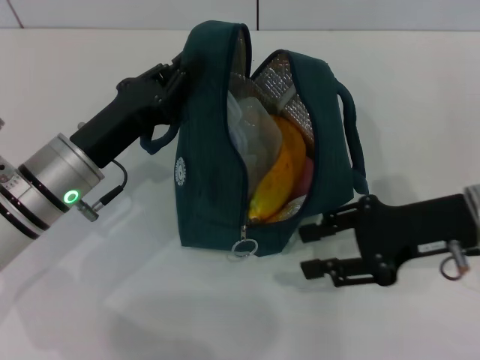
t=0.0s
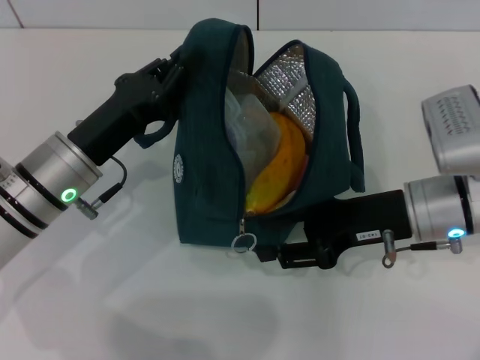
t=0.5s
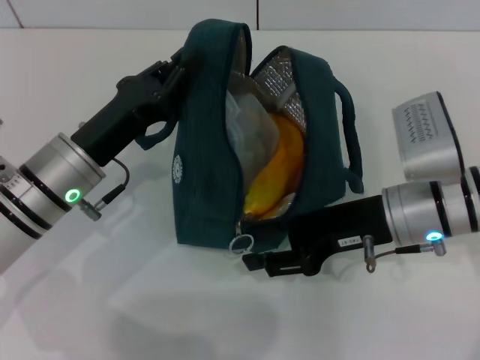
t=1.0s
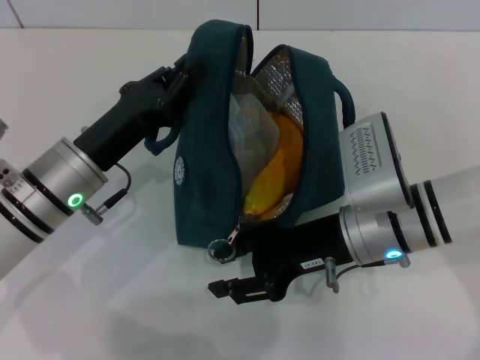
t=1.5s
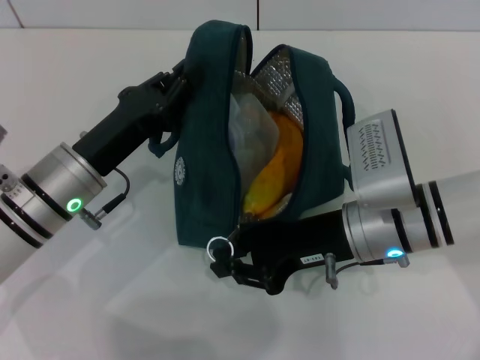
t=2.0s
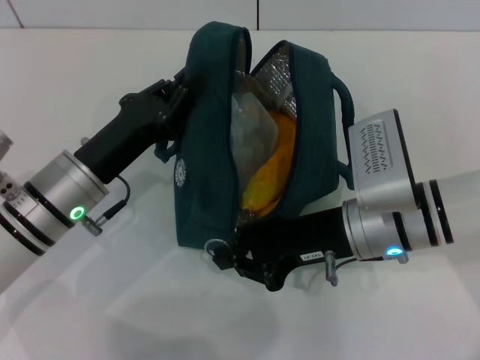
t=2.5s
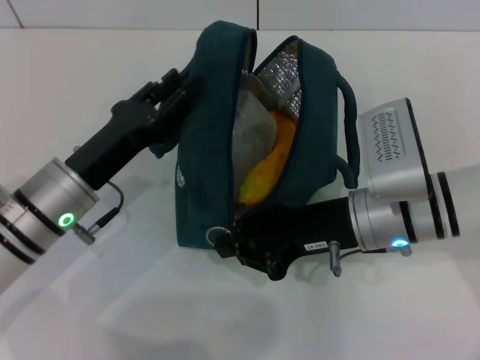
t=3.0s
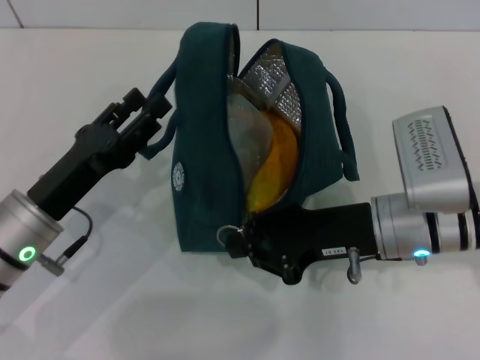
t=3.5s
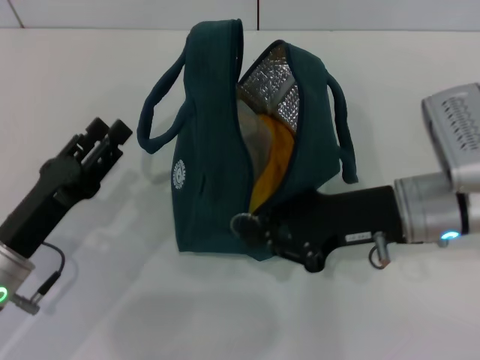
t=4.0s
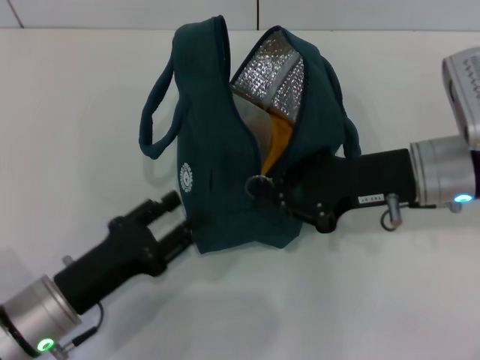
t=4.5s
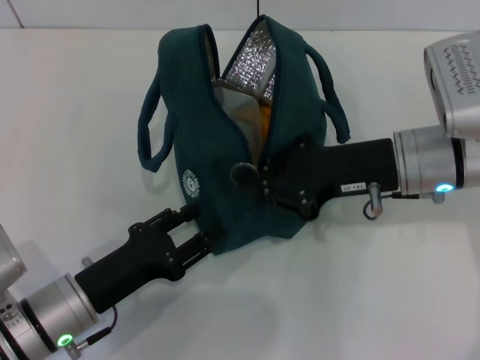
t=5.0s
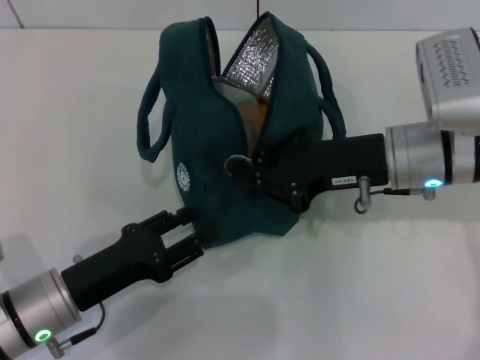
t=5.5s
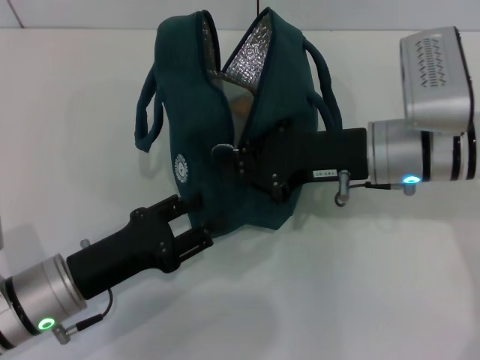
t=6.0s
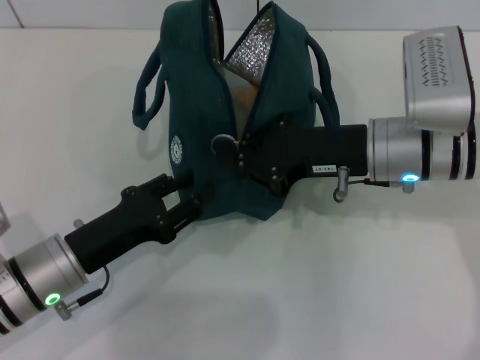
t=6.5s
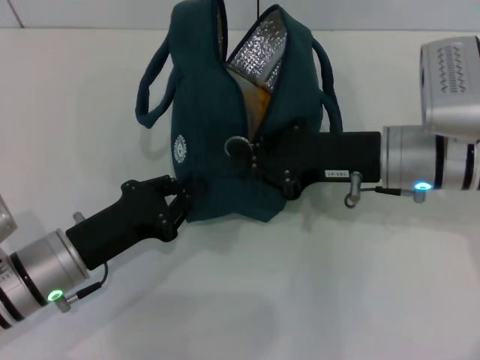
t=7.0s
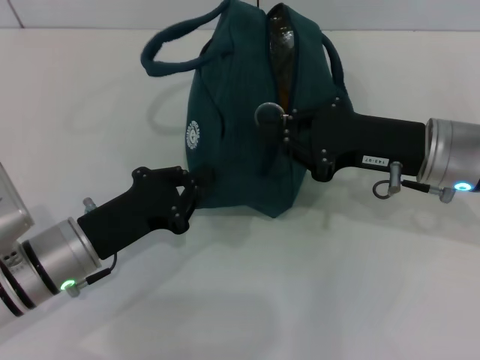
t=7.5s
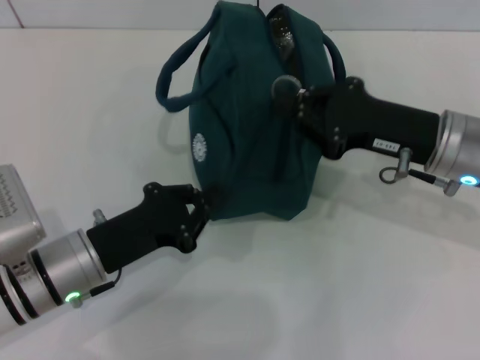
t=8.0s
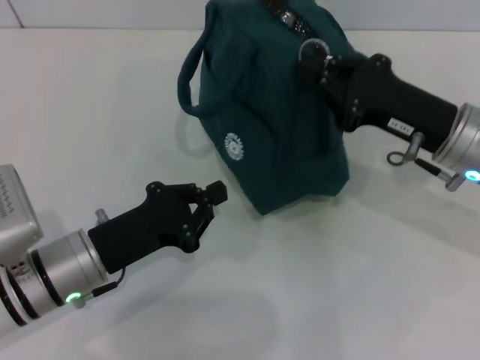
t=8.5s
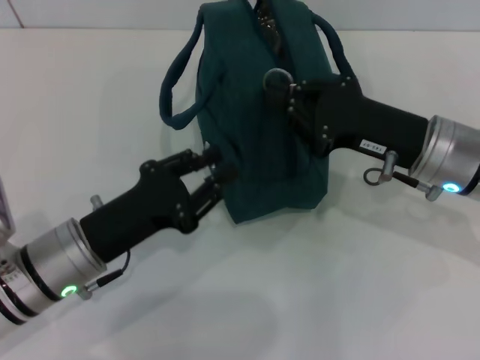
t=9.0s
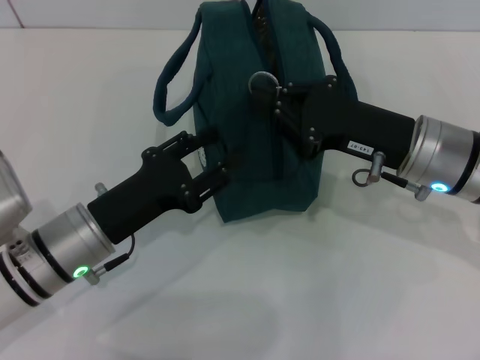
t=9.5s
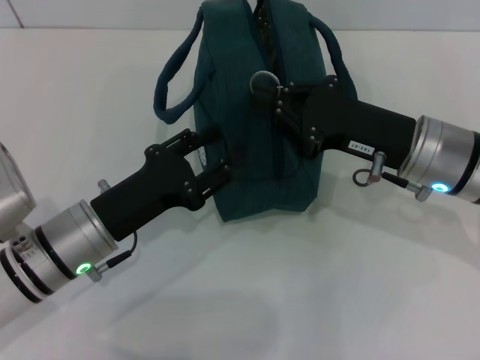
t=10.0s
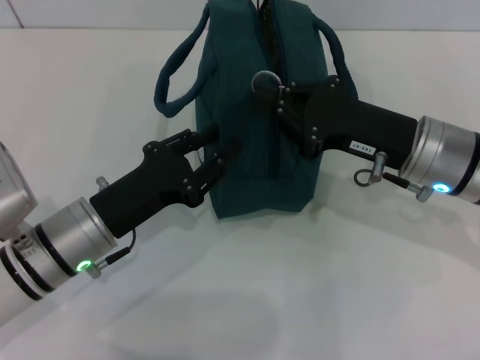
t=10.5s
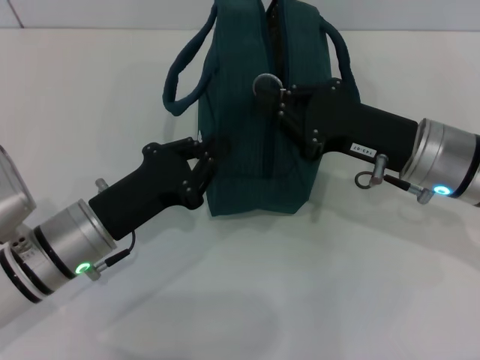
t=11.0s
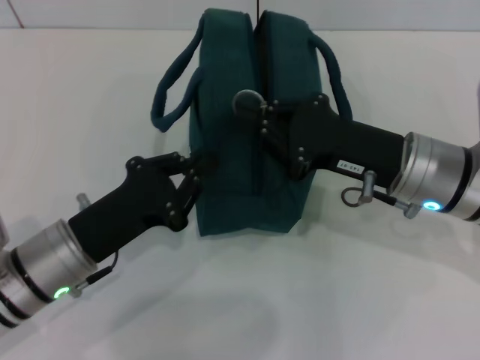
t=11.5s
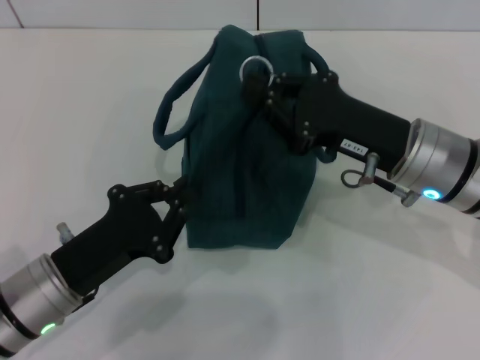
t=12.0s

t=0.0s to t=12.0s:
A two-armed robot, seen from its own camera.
t=0.0s to t=2.0s: The right gripper is displaced to the left by approximately 10 cm.
t=2.0s to t=4.0s: The left gripper heads backward and to the left, covering roughly 10 cm, and opens. Meanwhile the right gripper closes up.
t=6.0s to t=8.0s: The left gripper closes its fingers, while the right gripper is displaced to the right by some 5 cm.
t=8.0s to t=10.0s: The left gripper opens.
t=10.0s to t=12.0s: The left gripper shifts about 5 cm backward, and closes its fingers.

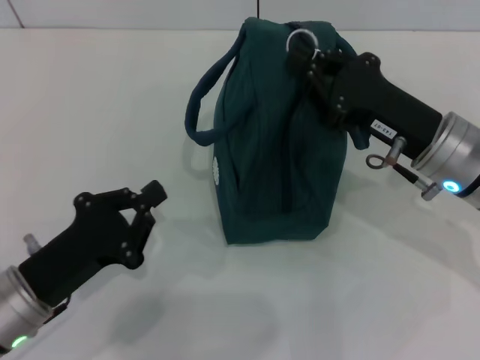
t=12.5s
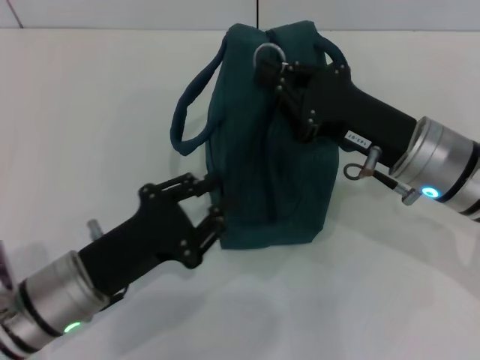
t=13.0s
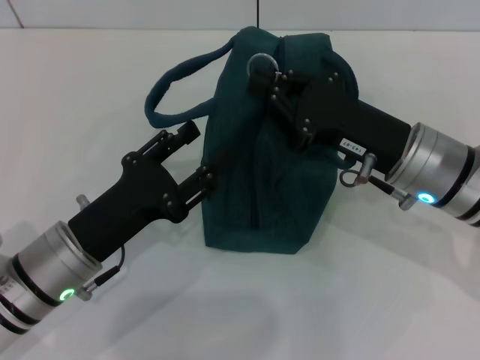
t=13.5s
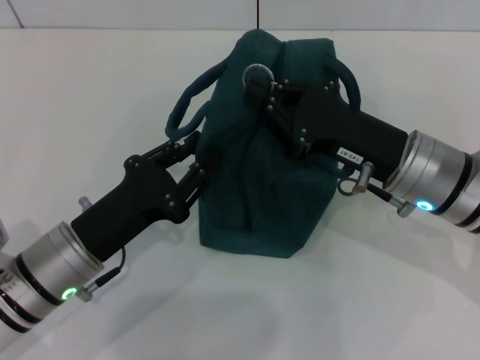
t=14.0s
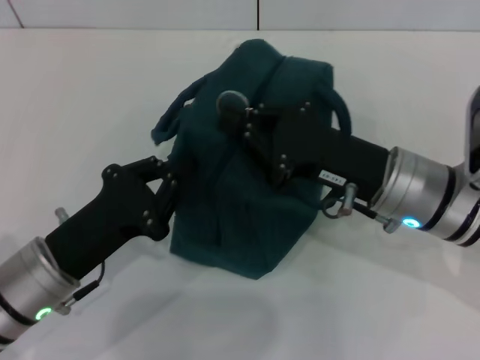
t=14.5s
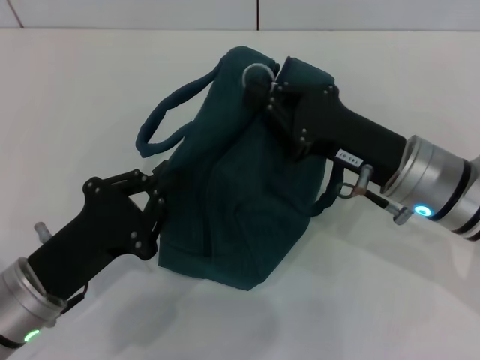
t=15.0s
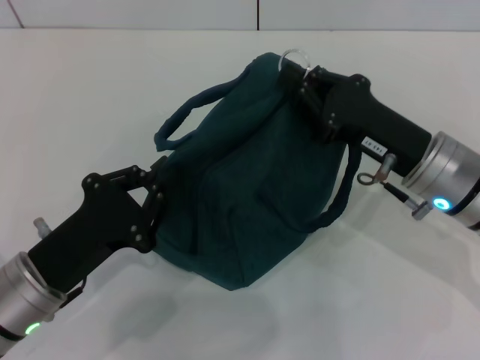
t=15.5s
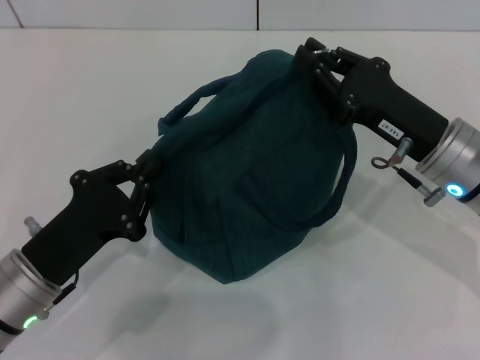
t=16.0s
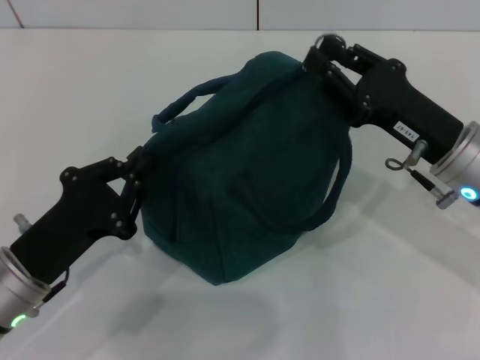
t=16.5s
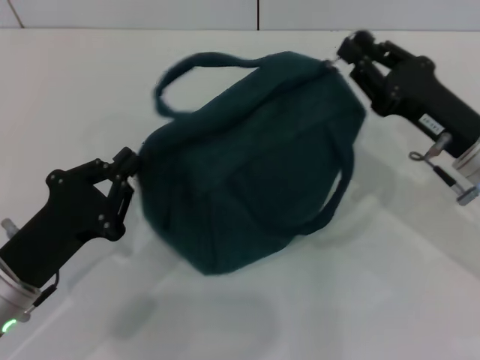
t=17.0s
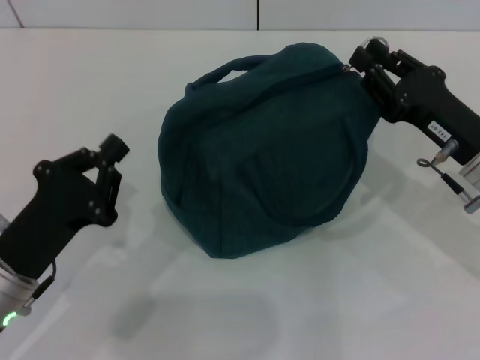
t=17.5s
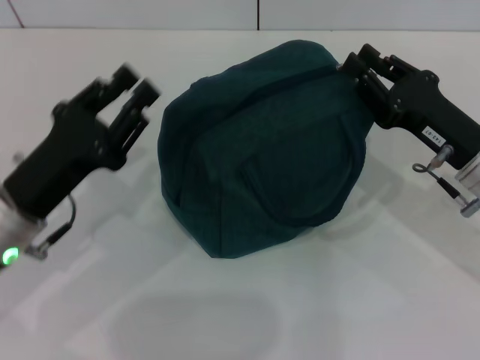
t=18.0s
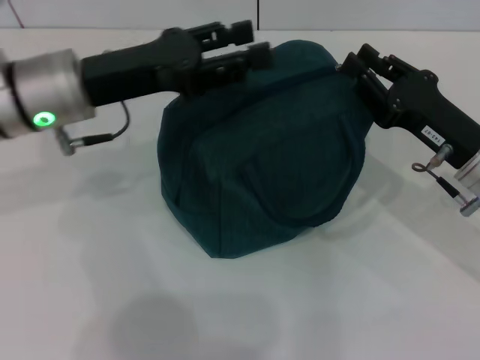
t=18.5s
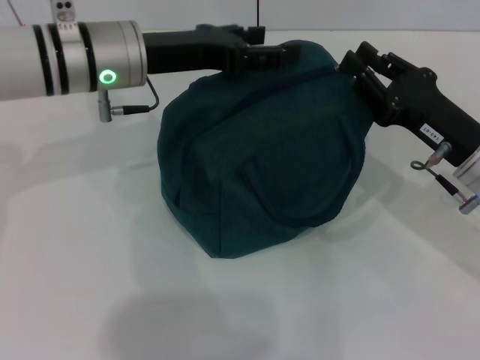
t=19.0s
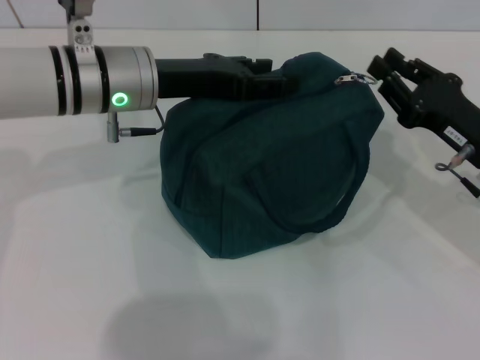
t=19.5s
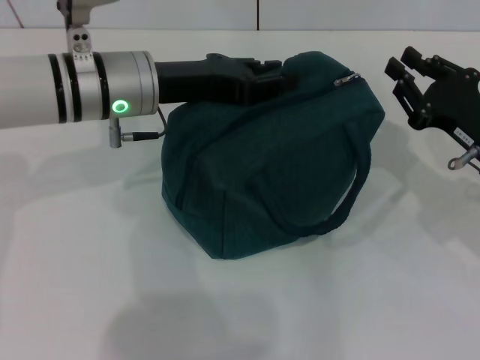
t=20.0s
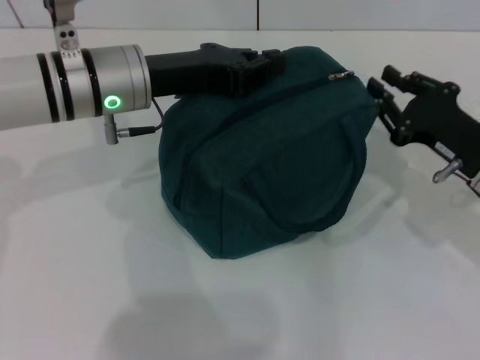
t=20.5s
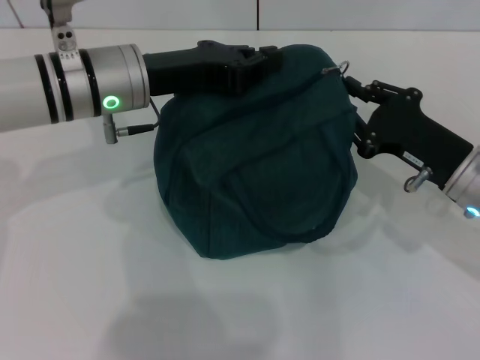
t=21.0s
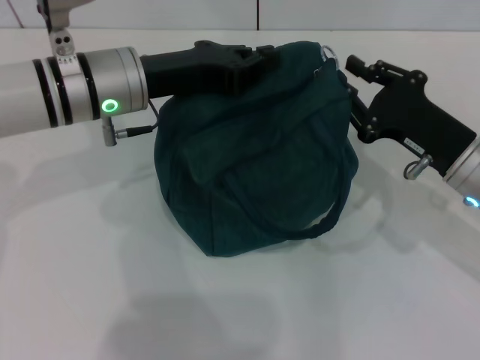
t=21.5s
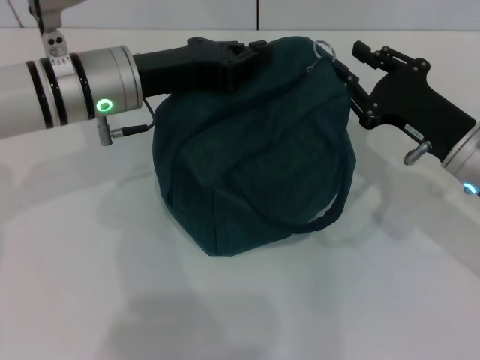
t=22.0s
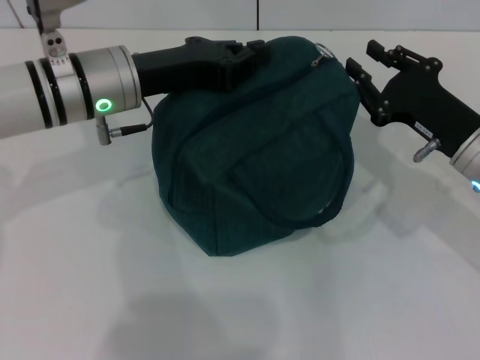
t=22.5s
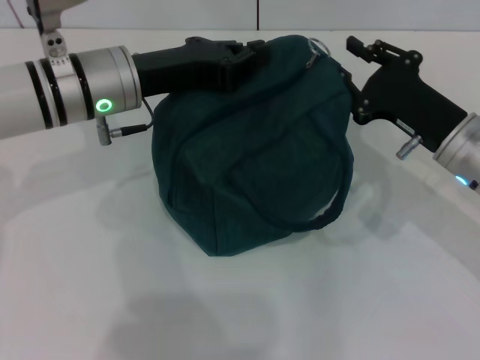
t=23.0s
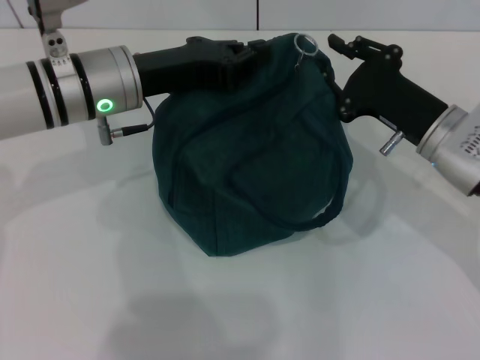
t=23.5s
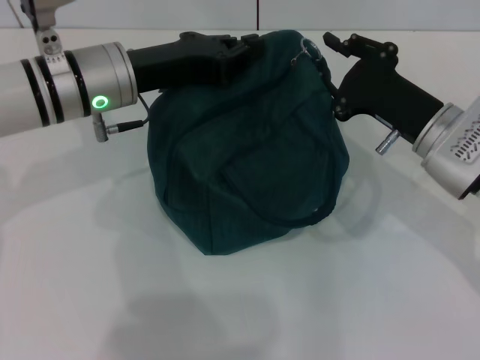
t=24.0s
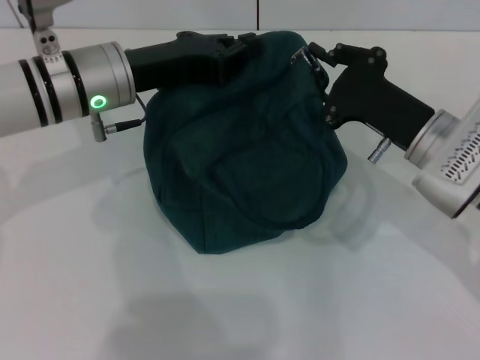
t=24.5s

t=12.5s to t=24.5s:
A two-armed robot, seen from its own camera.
t=12.5s to t=14.5s: The left gripper opens, then closes again.
t=14.5s to t=16.5s: The right gripper is displaced to the right by roughly 5 cm.
t=16.5s to t=18.5s: The left gripper is displaced forward and upward by about 20 cm, and opens.
t=18.5s to t=20.5s: The left gripper changes place by about 5 cm, and closes.
t=20.5s to t=22.5s: The grippers stay close to where they were, moving slightly.
t=22.5s to t=24.5s: There are only small adjustments of the grippers.

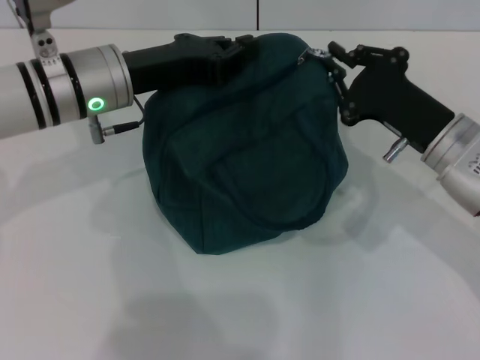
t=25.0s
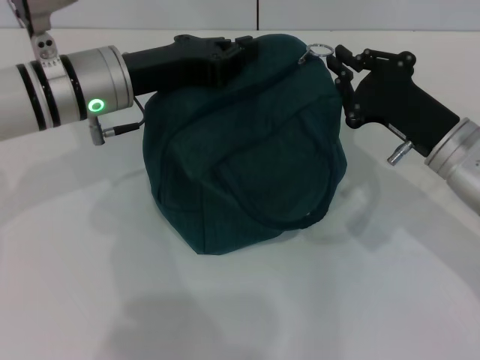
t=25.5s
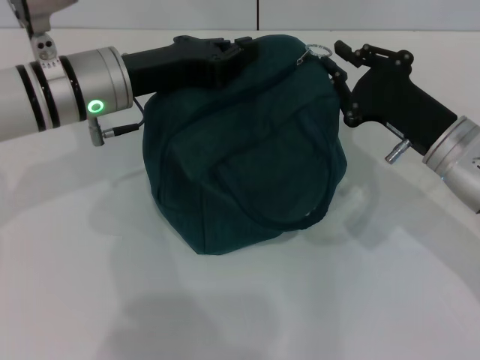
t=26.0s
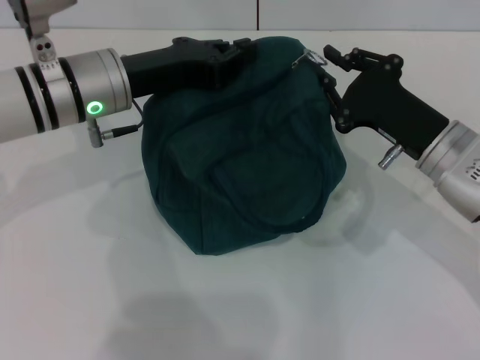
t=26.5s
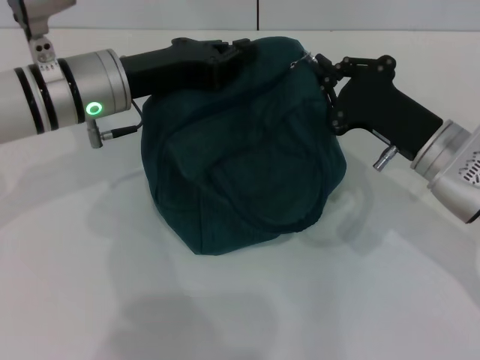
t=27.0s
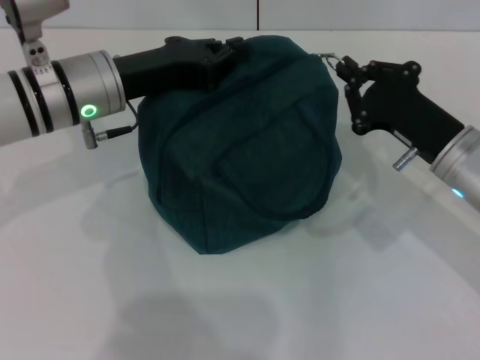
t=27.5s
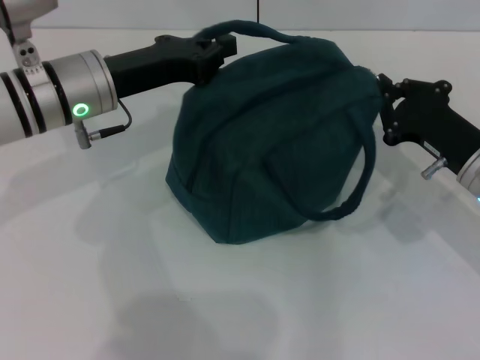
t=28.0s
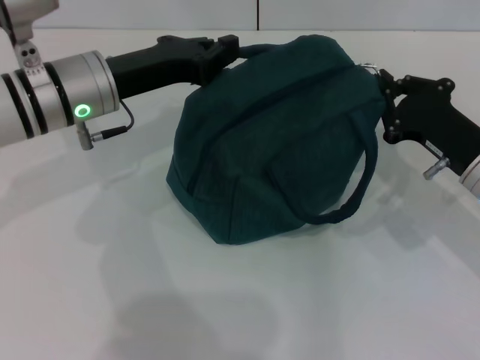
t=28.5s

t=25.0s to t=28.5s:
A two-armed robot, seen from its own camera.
Step, t=25.0s to t=28.0s: Hold the lunch bag with your left hand.
t=25.0s to t=27.0s: Both grippers stay put.
t=27.0s to t=28.5s: The right gripper moves to the right, approximately 5 cm.
